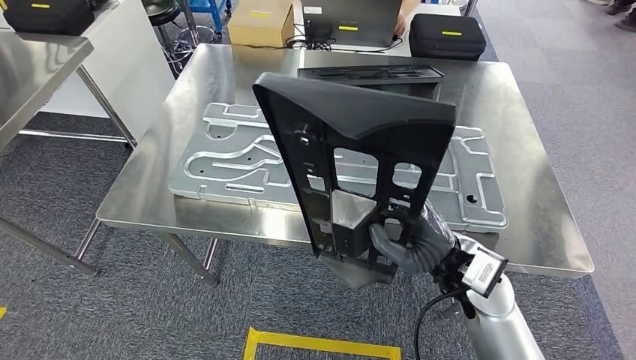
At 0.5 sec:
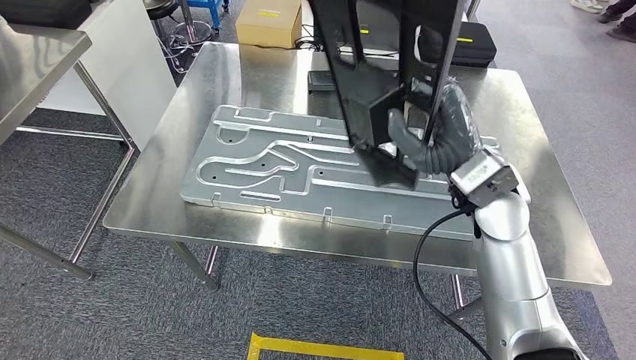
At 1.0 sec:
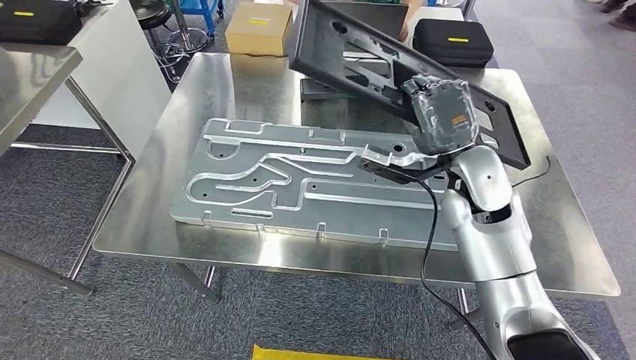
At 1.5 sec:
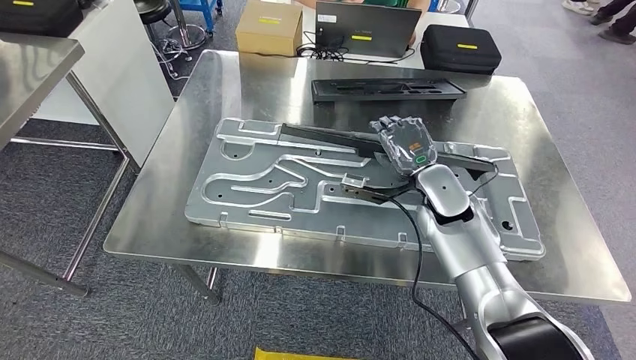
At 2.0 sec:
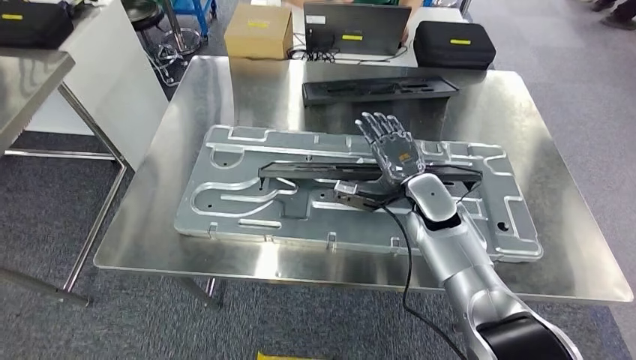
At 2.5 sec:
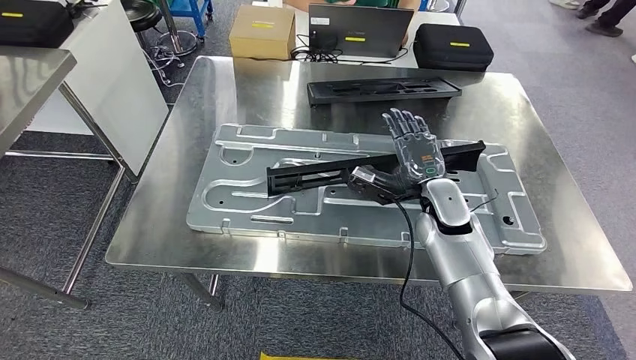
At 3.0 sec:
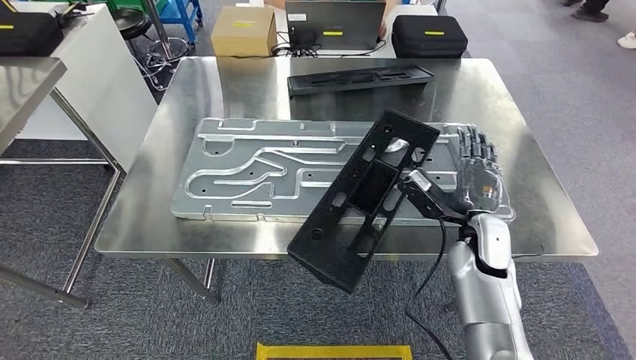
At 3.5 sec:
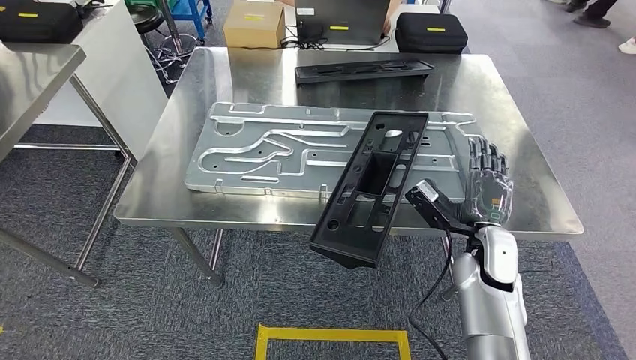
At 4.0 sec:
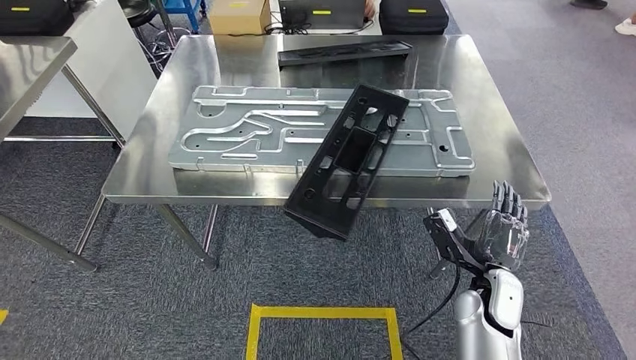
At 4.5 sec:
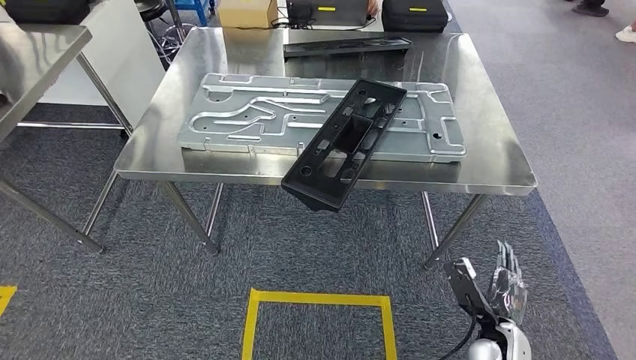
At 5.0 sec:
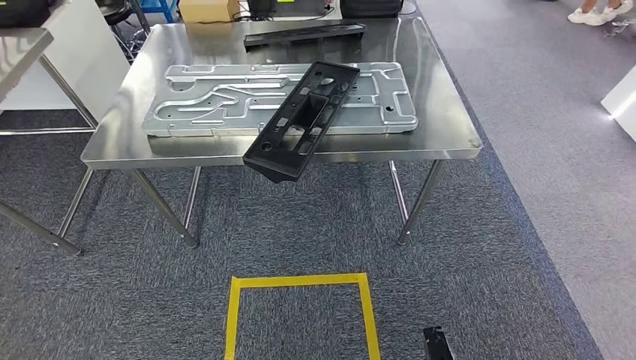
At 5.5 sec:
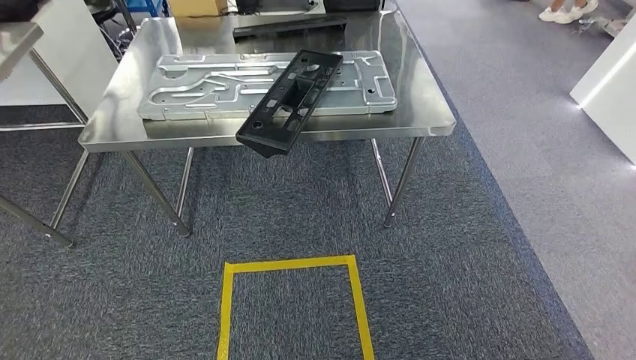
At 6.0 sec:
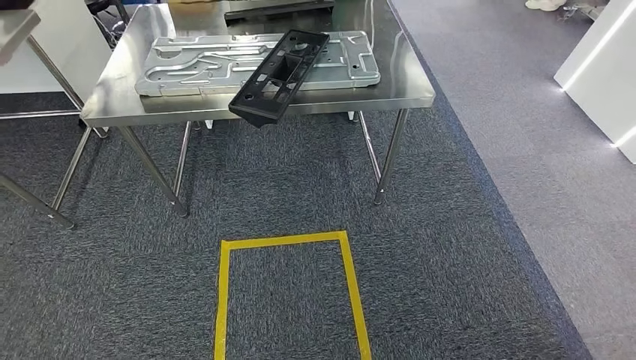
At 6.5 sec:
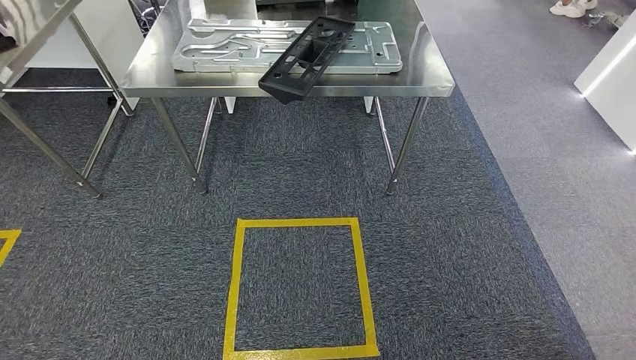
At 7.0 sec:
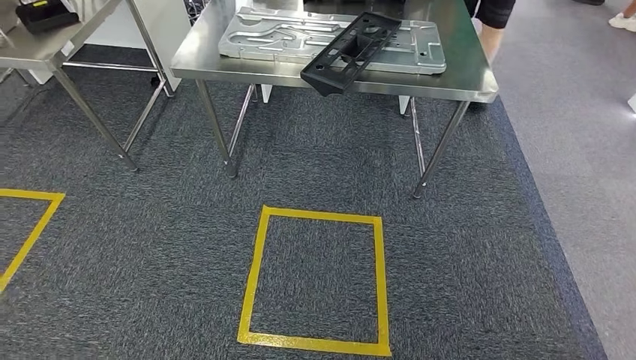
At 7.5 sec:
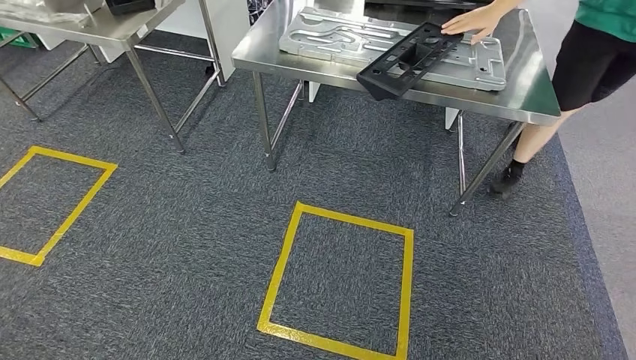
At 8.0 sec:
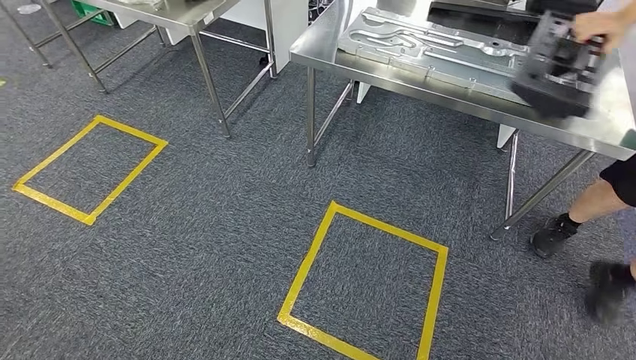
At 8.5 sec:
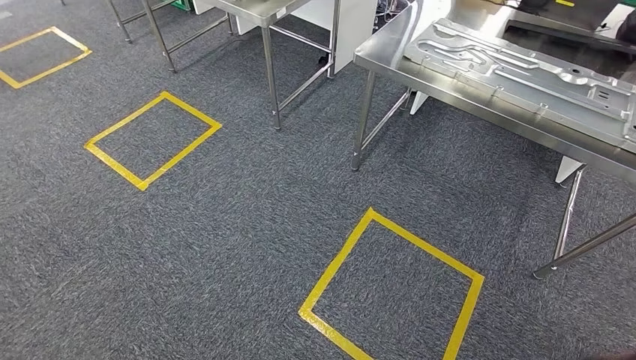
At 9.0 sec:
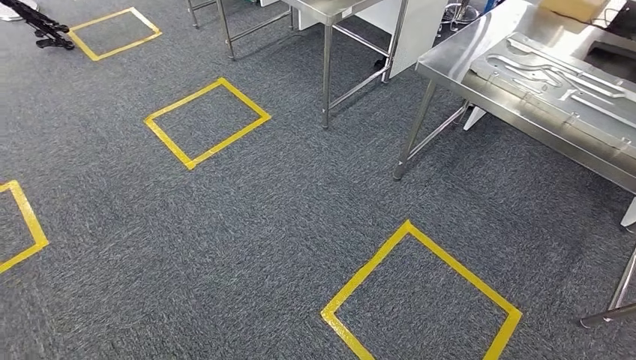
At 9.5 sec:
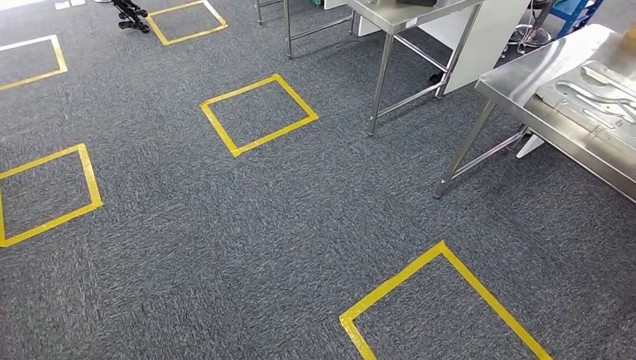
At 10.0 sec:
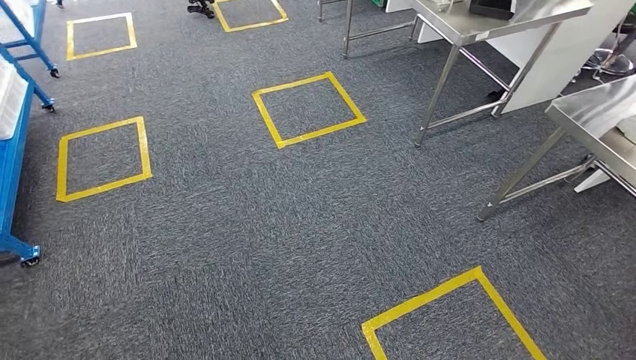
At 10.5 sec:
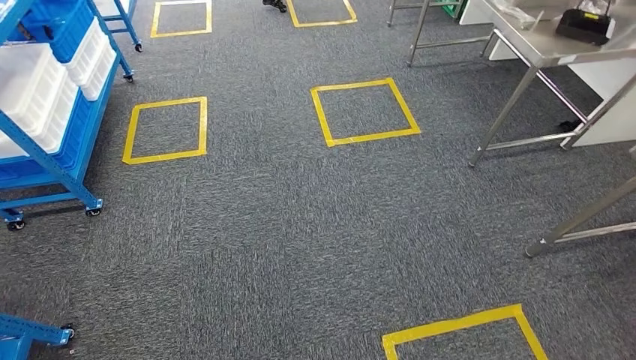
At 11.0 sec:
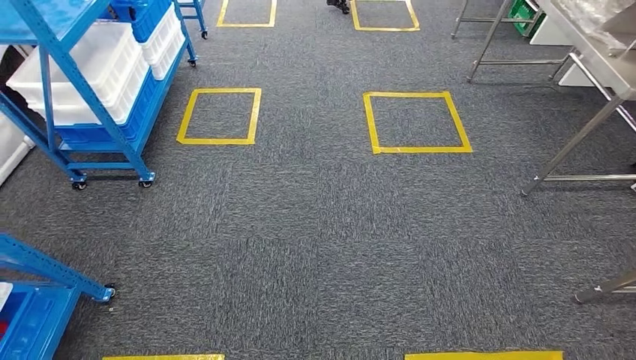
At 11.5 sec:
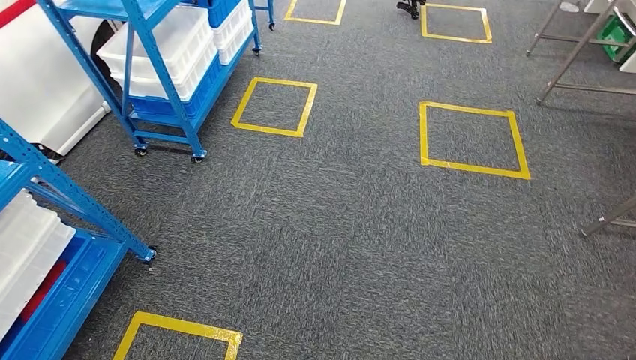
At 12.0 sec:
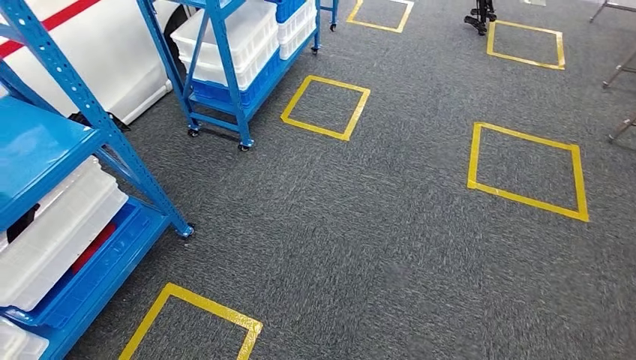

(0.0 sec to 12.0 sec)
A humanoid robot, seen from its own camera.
Step, 2.0 sec - 5.0 sec: Insert the large material into the corresponding slot on the workbench.

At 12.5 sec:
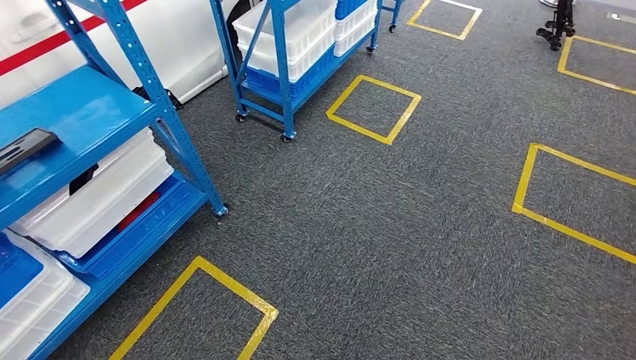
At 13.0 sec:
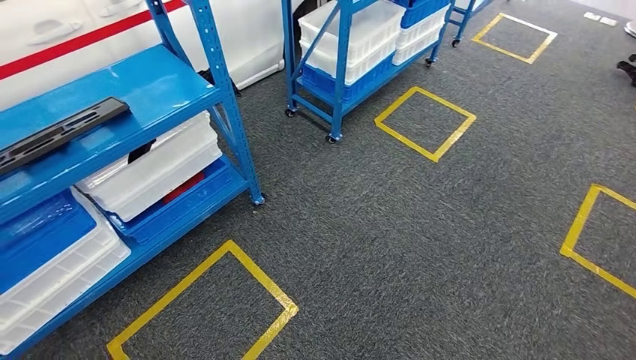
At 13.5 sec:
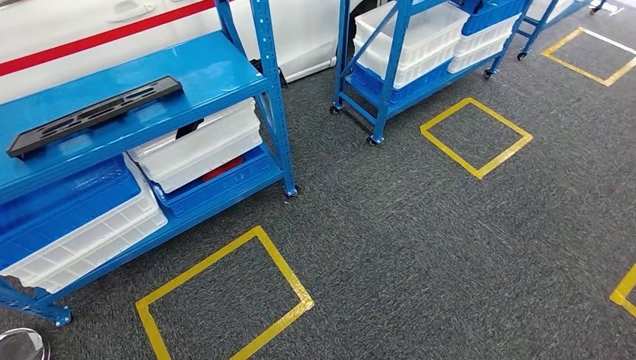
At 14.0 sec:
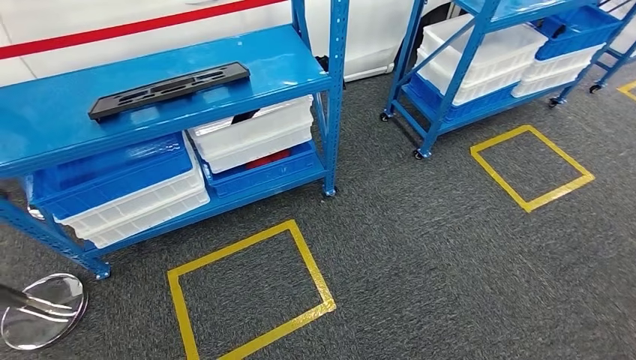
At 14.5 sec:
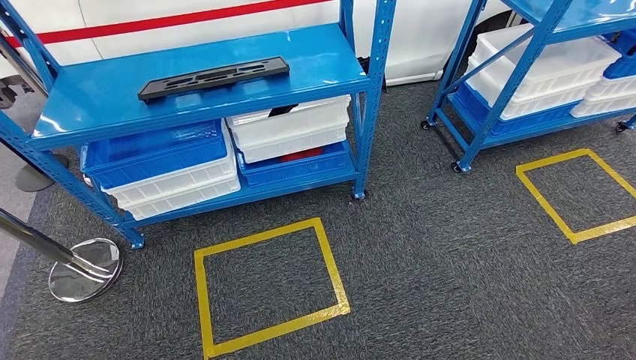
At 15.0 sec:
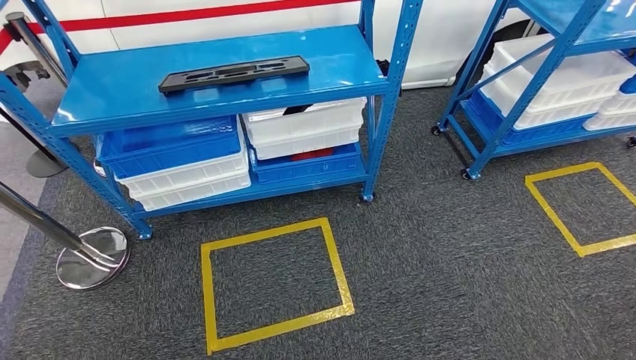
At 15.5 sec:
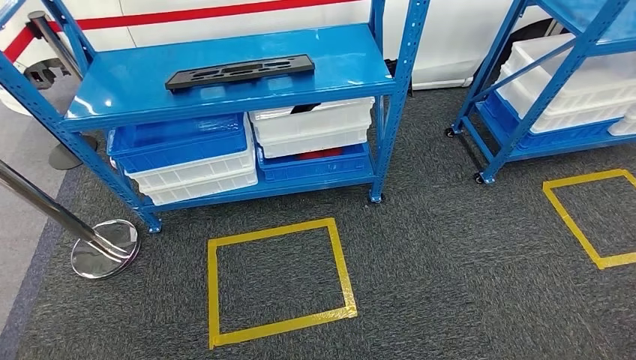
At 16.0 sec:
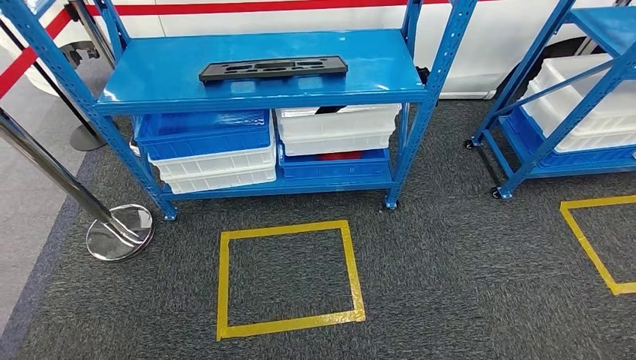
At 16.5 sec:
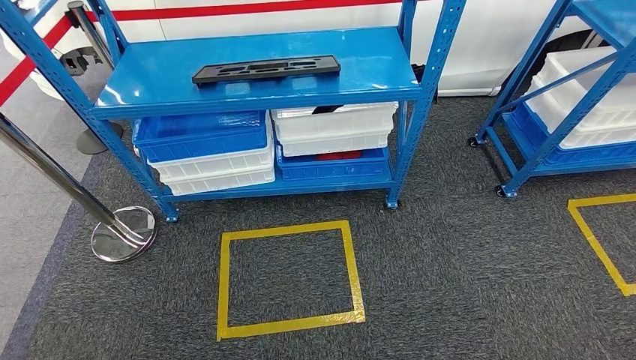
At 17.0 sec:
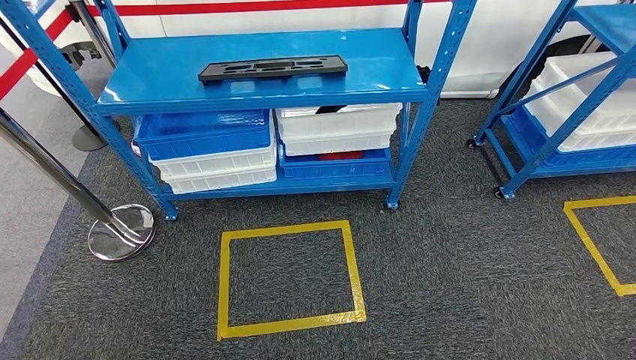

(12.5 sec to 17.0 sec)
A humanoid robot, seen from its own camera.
Step, 12.5 sec - 17.0 sec: Move to the initial position of the shelf.

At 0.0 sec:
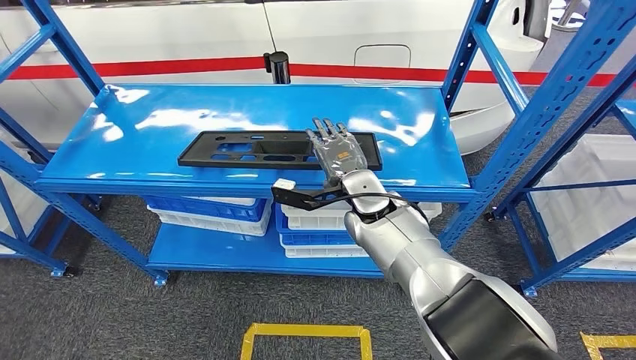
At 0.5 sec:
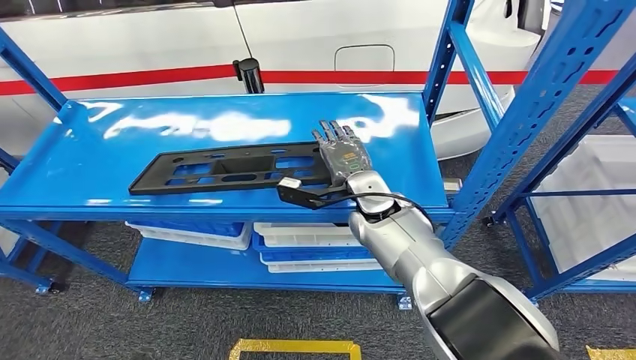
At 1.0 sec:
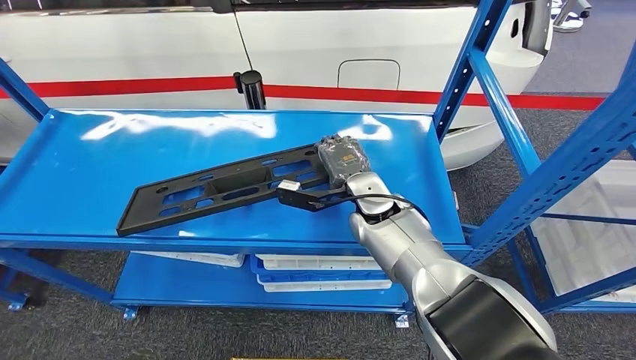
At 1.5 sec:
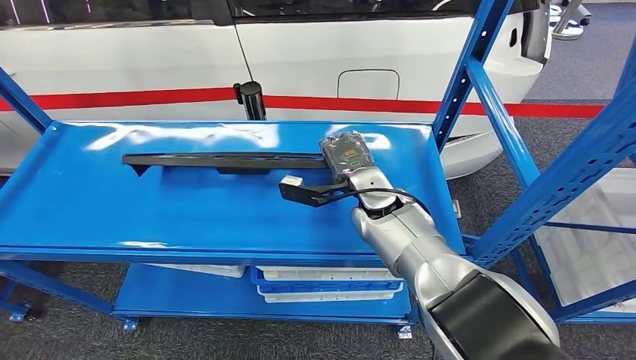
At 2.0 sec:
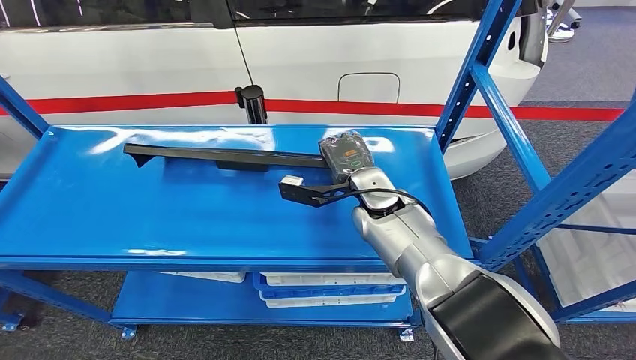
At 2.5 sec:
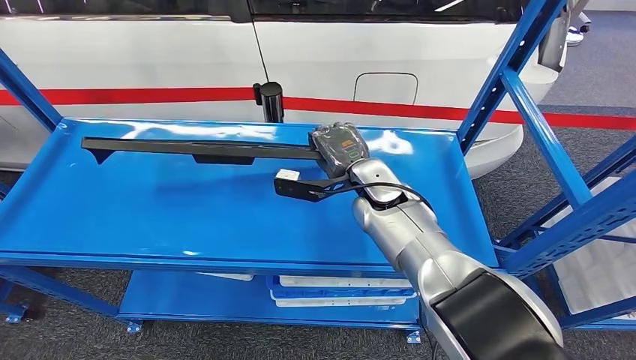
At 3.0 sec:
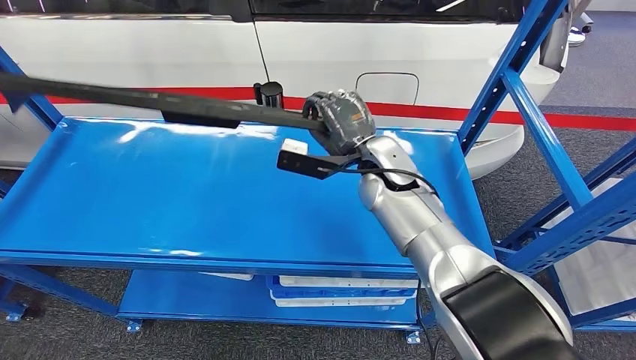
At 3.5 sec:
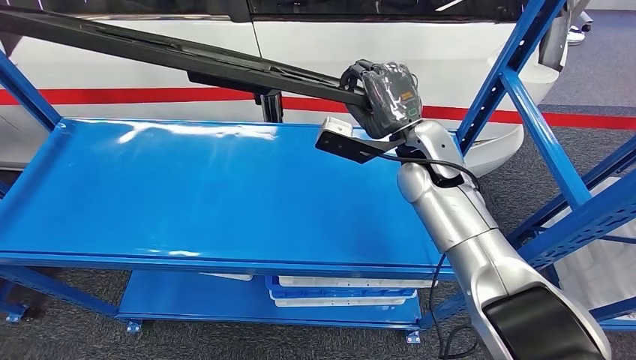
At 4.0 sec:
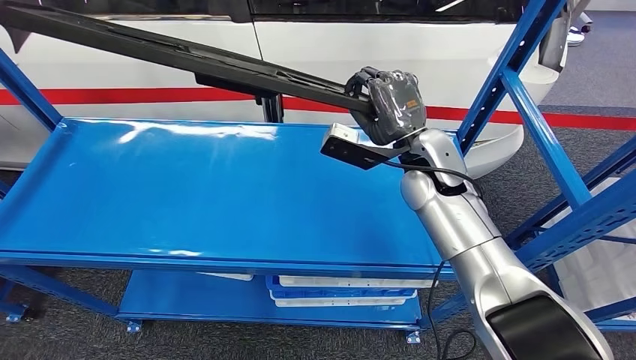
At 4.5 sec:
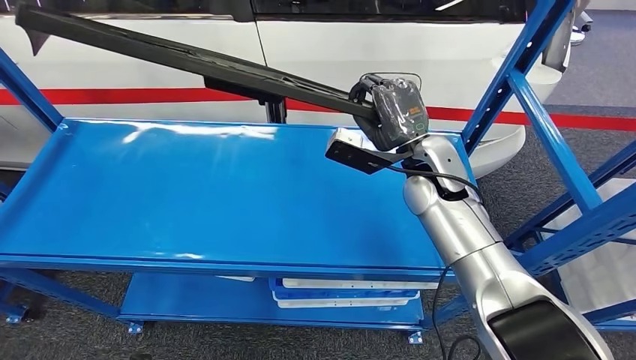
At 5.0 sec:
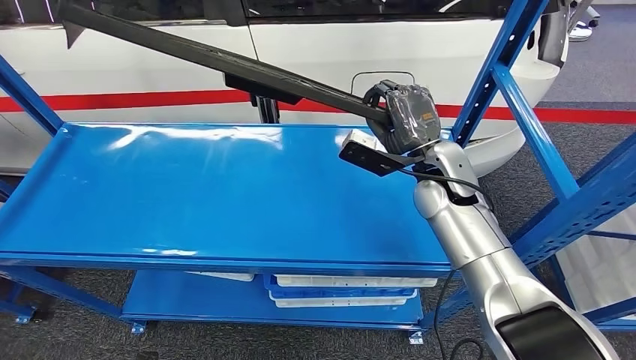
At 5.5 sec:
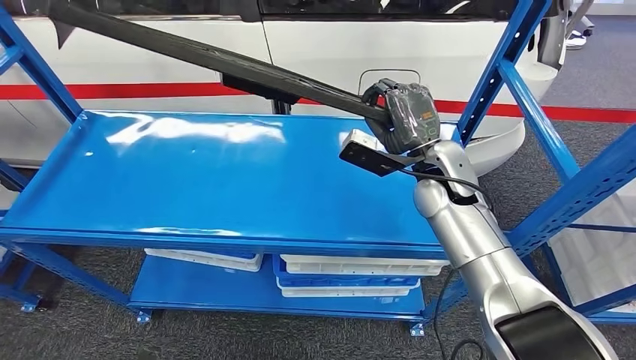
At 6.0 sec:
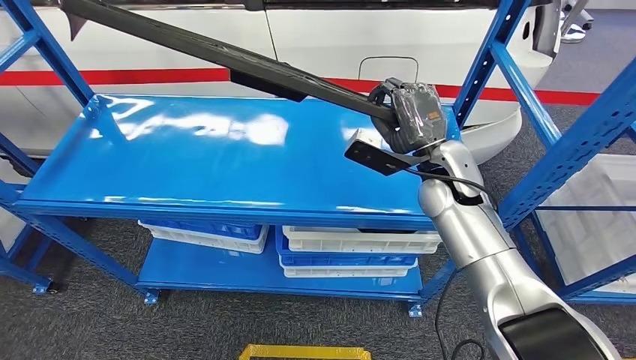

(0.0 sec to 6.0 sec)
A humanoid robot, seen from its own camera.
Step, 0.0 sec - 3.0 sec: Pick up the large material from the shelf.
